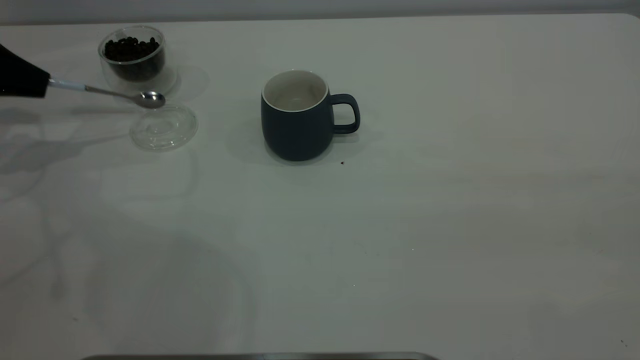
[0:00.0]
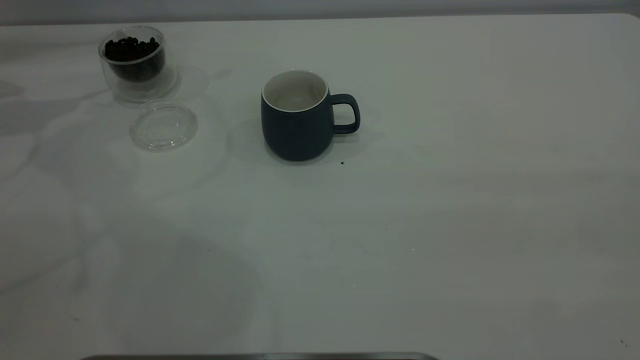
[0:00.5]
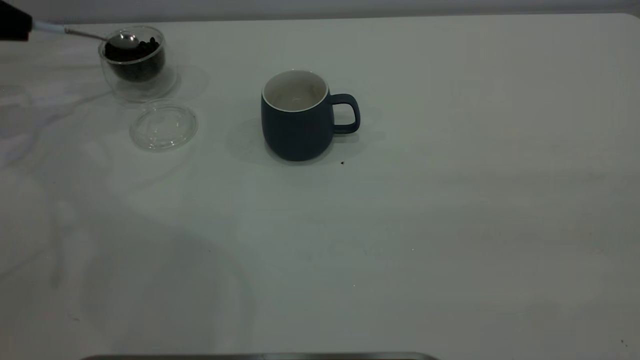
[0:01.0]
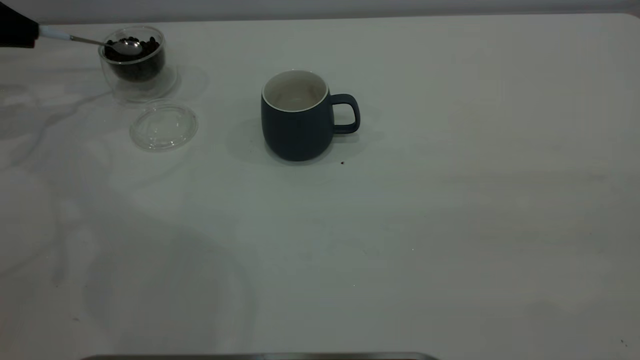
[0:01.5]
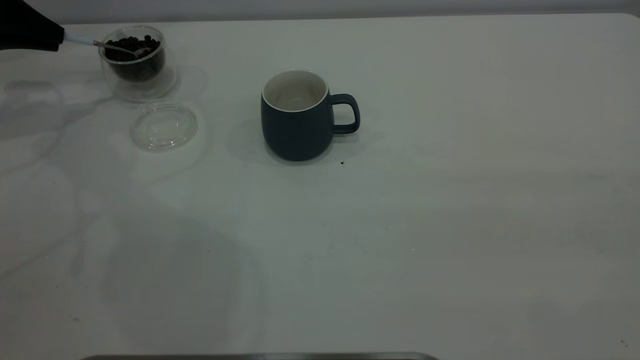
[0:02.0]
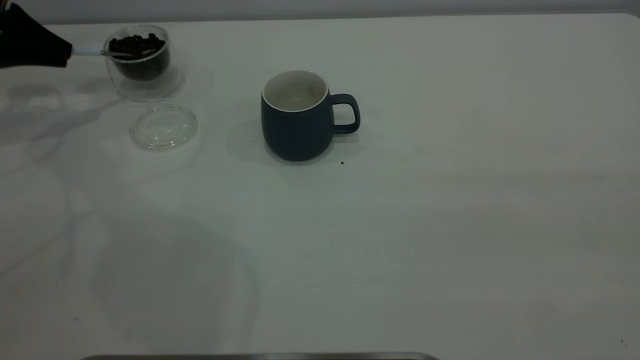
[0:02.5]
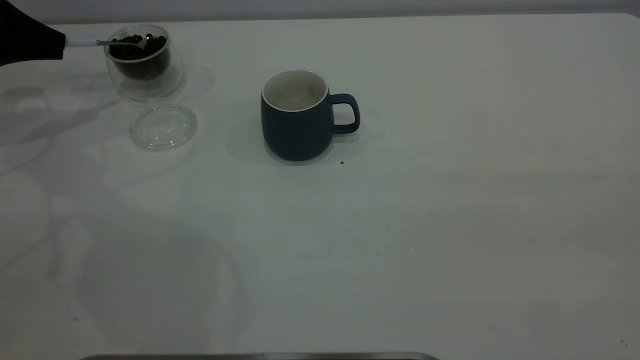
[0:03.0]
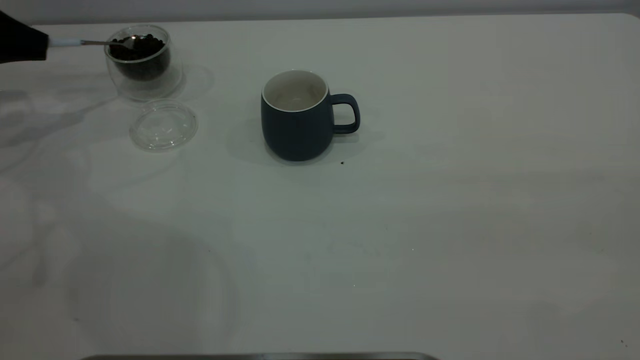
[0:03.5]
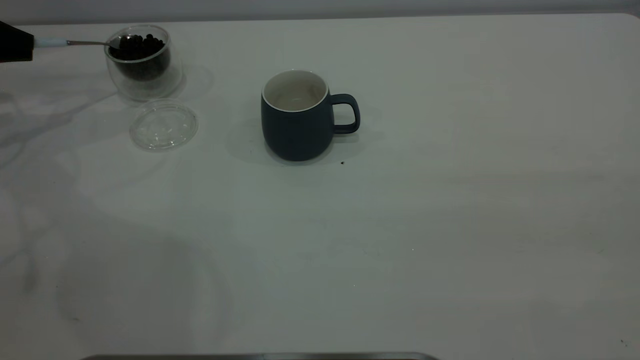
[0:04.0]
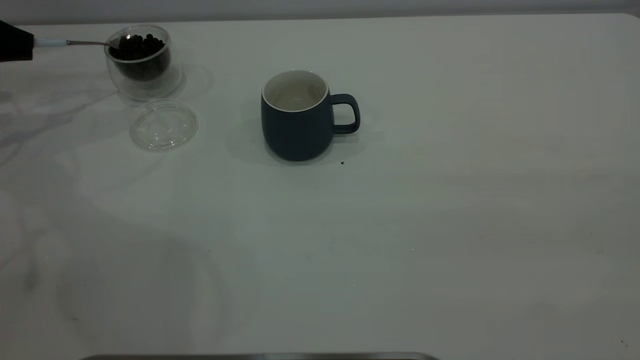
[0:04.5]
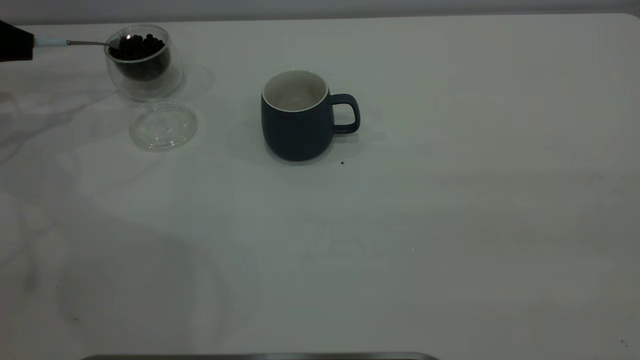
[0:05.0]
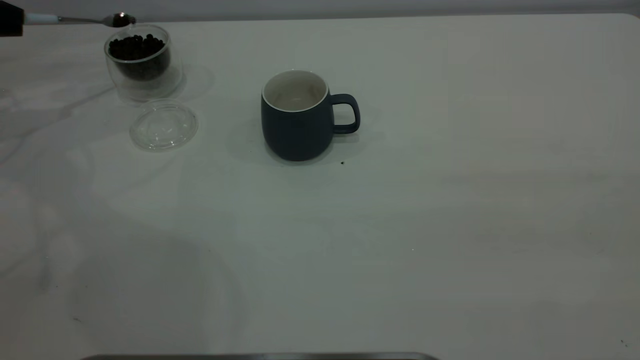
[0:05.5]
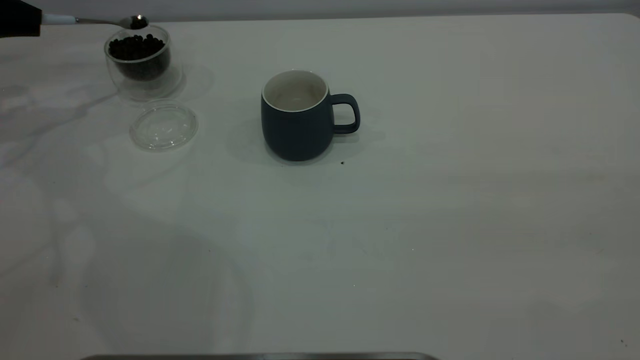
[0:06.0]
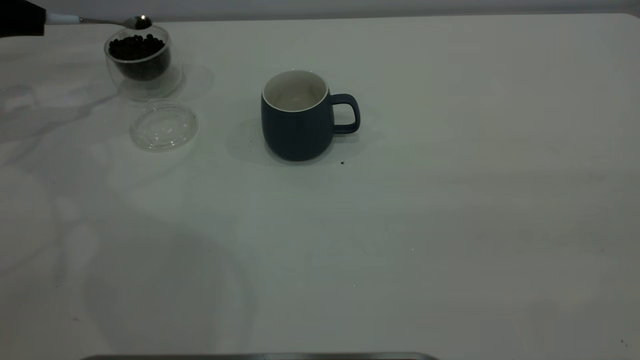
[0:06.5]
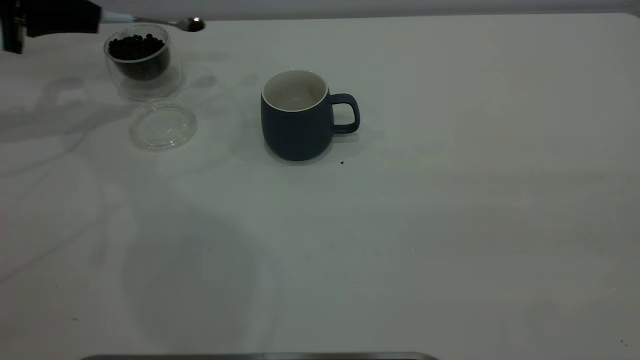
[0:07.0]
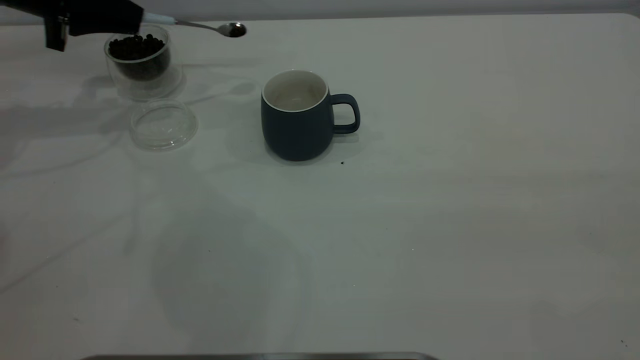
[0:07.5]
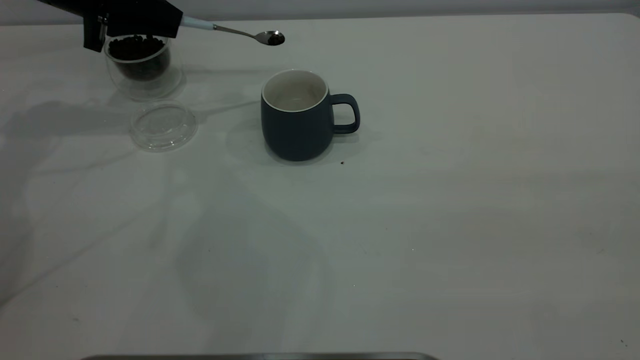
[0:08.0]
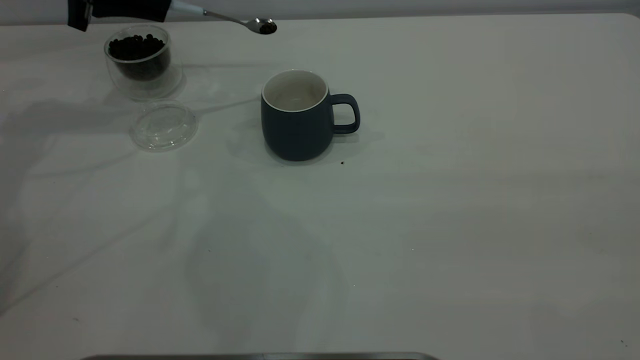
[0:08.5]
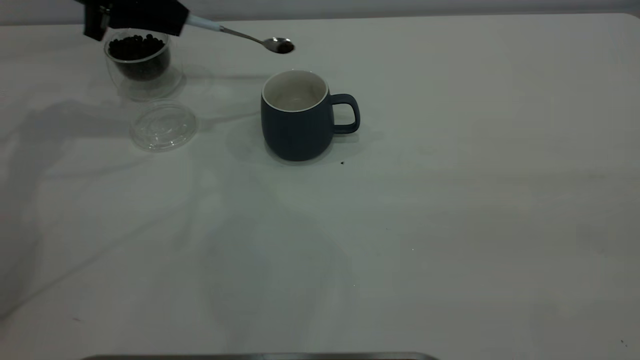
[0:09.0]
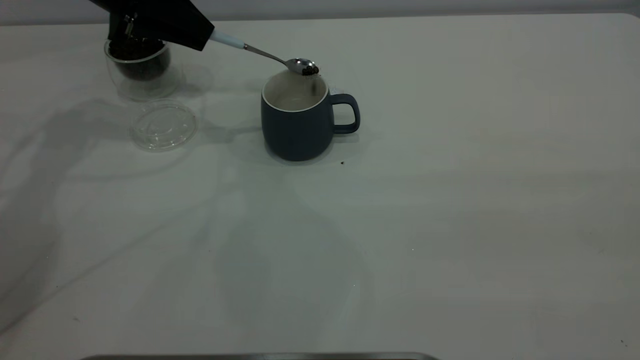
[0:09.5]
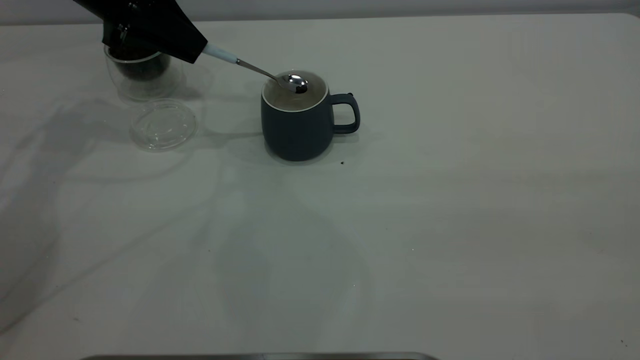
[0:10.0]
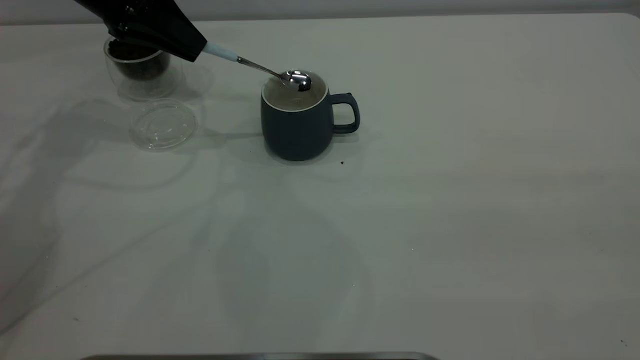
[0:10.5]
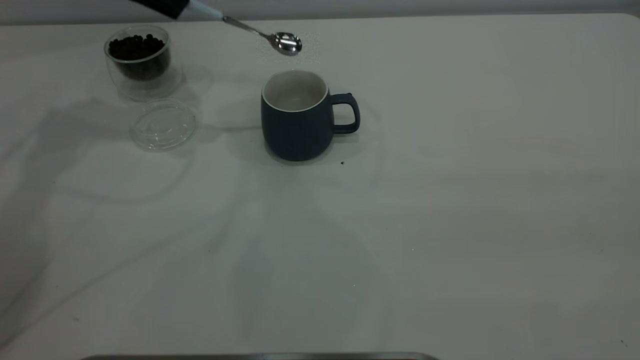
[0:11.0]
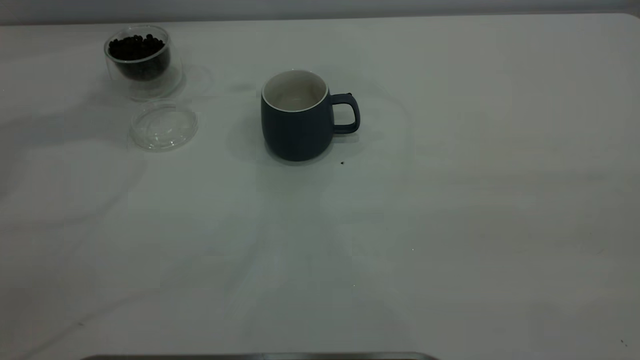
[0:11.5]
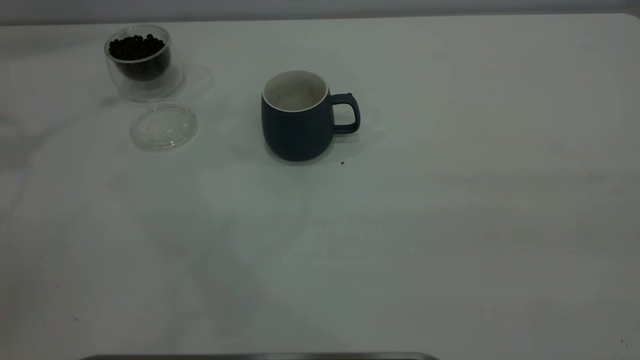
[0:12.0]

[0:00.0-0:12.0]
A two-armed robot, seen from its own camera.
Task of the whole recording: the right gripper place the grey cup in the center of the table, the left gripper take the blue spoon from the cup lid and scoop out the coffee beans from the coffee cup and put them into the grey cup, the left gripper put the spoon back into the cup lid.
Step, 0:00.5 to 0:10.5: Scoop a spoonful of beans into the cup.
0:00.0 to 0:02.0: The left gripper moves forward, approximately 5 cm, and goes upward and returns, some 10 cm each way.
0:02.0 to 0:06.0: The grippers stay close to where they were, moving slightly.
0:06.0 to 0:08.0: The left gripper moves to the right, about 15 cm.
0:08.0 to 0:10.0: The left gripper ends up roughly 5 cm from where it was.
0:10.0 to 0:12.0: The left gripper travels to the left, upward and backward by roughly 25 cm.

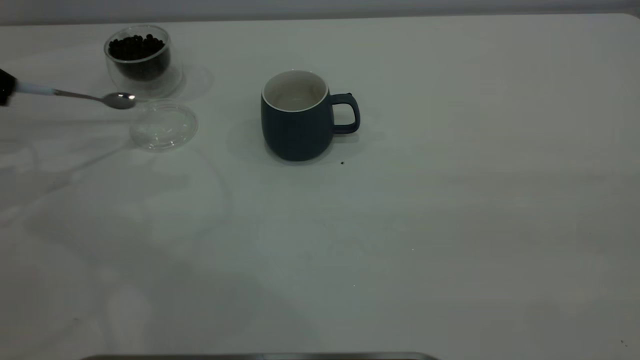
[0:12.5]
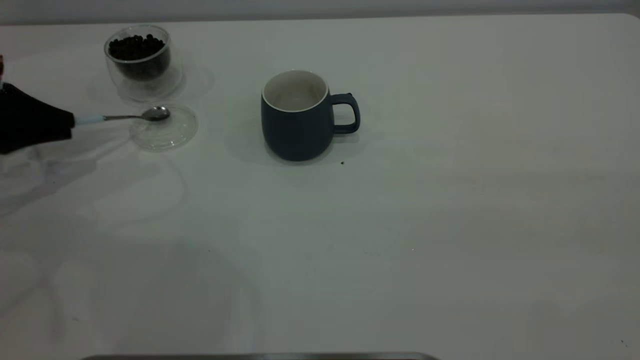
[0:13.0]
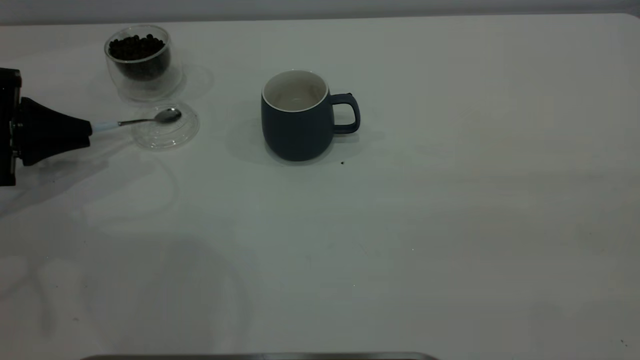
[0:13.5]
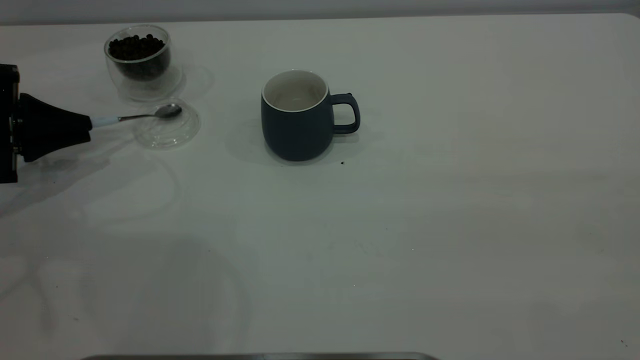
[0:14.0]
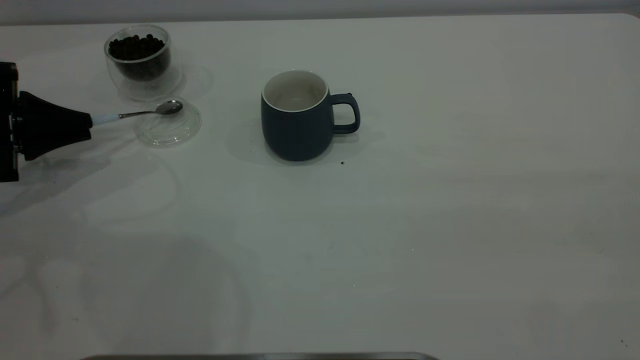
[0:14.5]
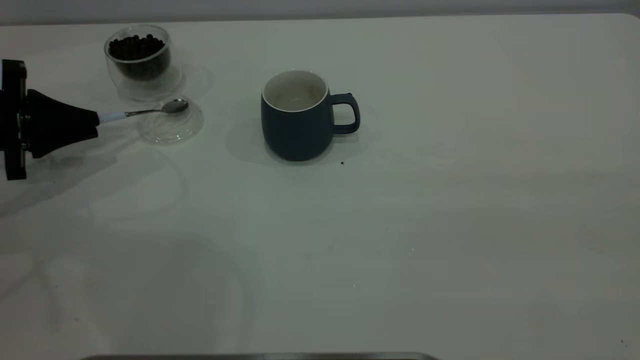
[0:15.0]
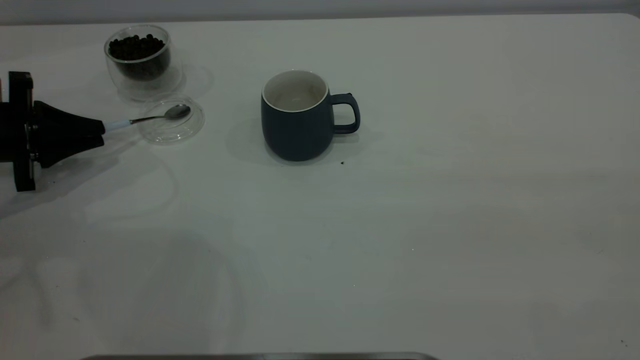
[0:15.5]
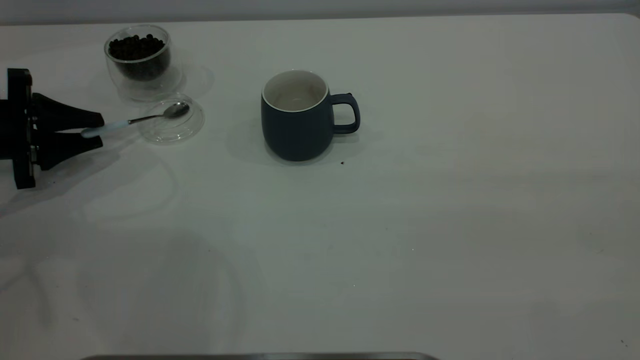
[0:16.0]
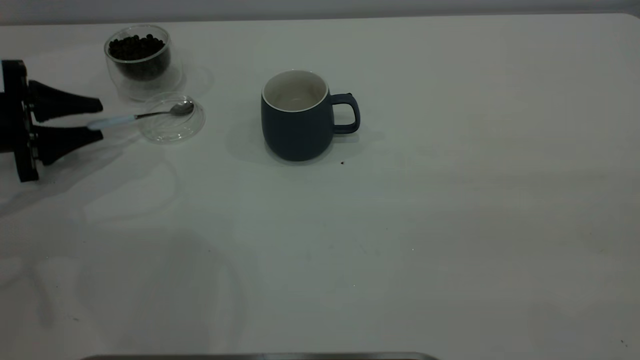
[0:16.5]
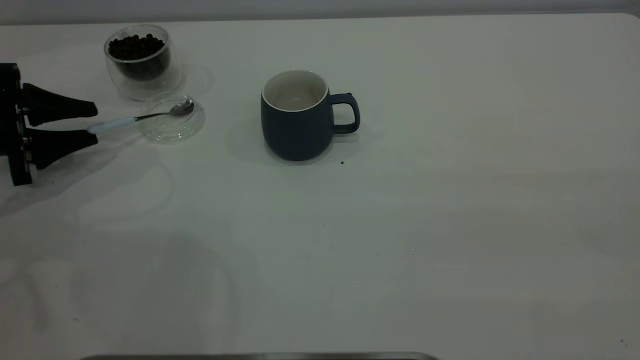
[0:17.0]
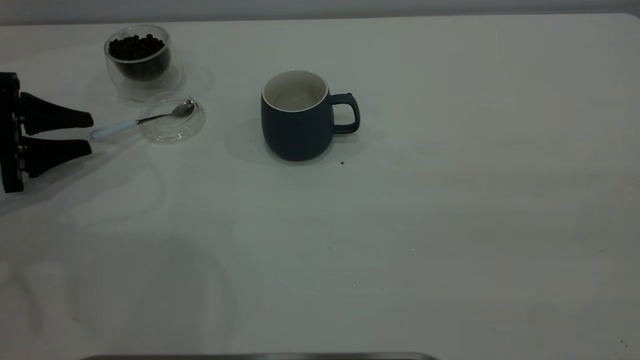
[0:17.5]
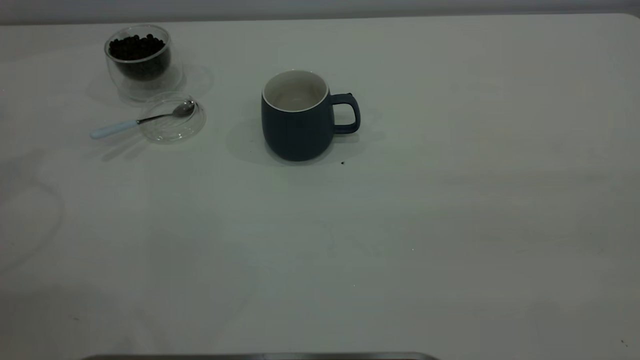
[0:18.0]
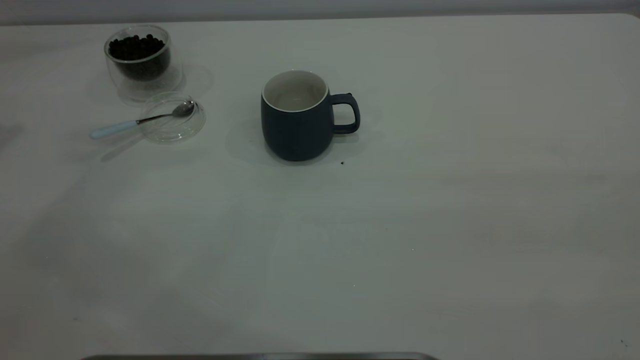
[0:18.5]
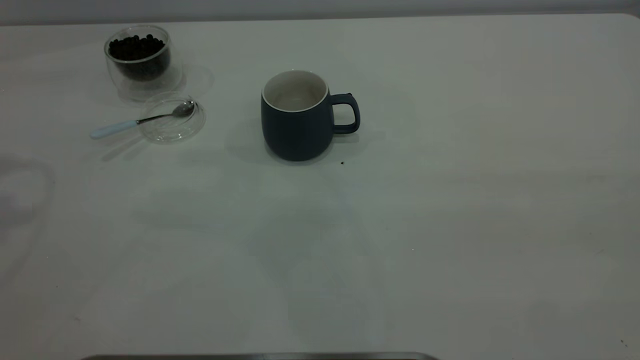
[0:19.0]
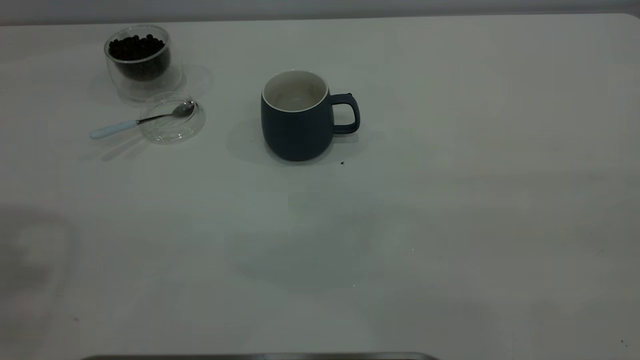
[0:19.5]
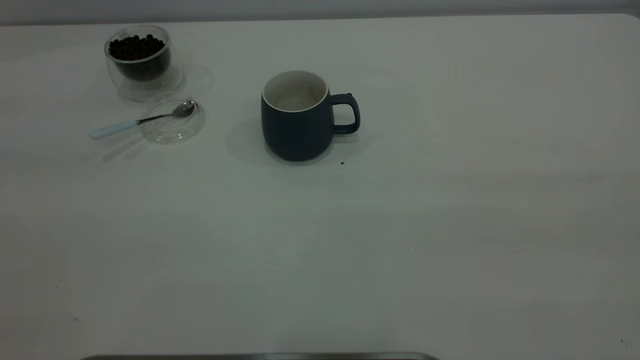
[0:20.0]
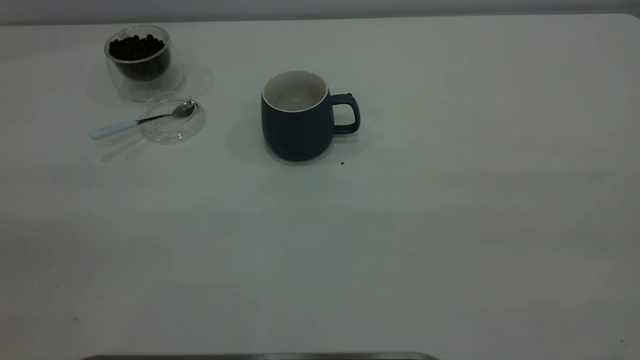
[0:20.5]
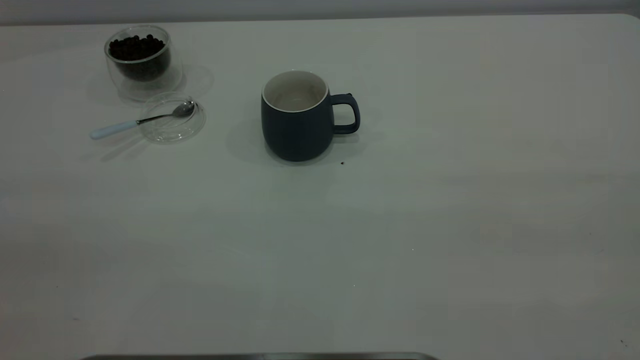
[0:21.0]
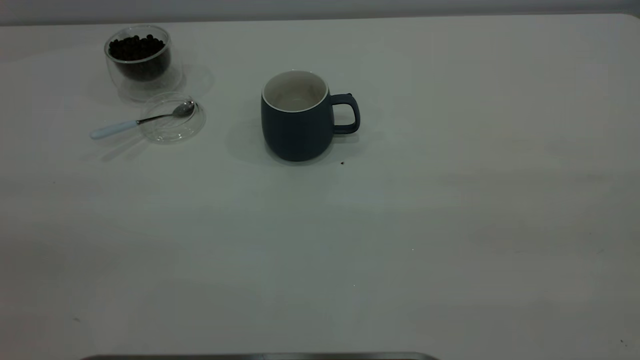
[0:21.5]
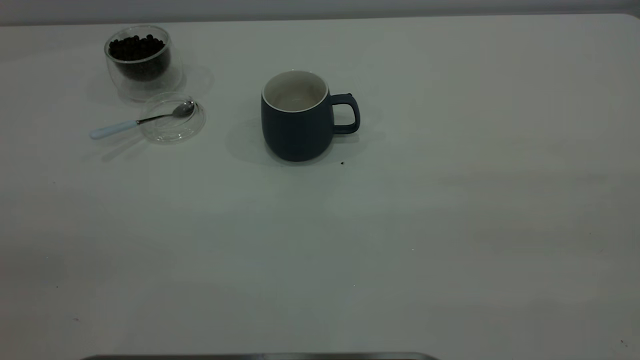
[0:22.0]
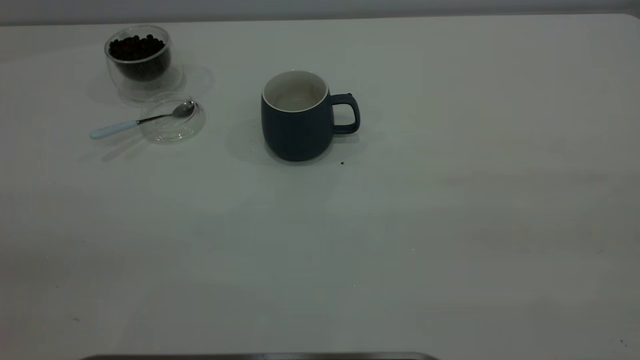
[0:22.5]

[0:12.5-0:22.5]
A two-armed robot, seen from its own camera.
Task of the whole recording: the right gripper place the grey cup in the center of the table, the left gripper take the blue spoon from the cup lid and scoop out the coffee beans from the coffee cup and put them into the grey cup, the left gripper put the spoon back into the cup lid.
Step, 0:12.5 to 0:17.5: Place the spoon back in its original place.
0:12.5 to 0:14.5: The left gripper shifts roughly 10 cm downward.
0:14.5 to 0:16.5: The left gripper opens up.
0:16.5 to 0:18.5: The left gripper travels upward by approximately 25 cm.
